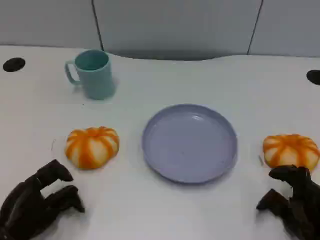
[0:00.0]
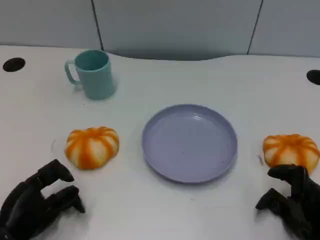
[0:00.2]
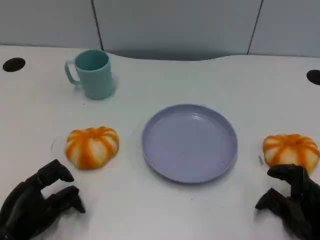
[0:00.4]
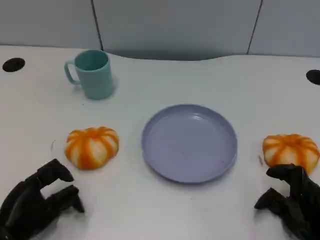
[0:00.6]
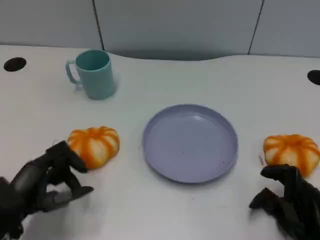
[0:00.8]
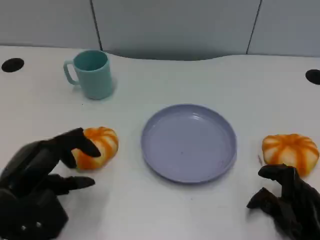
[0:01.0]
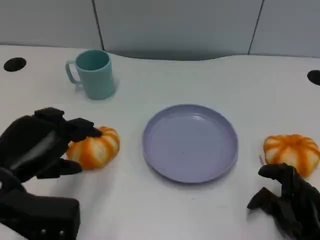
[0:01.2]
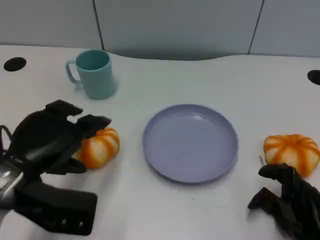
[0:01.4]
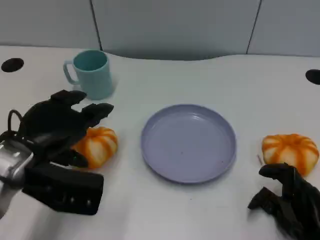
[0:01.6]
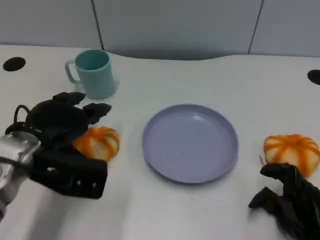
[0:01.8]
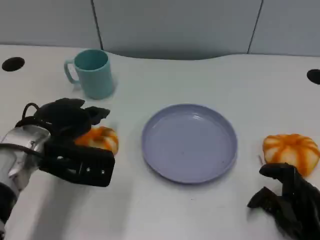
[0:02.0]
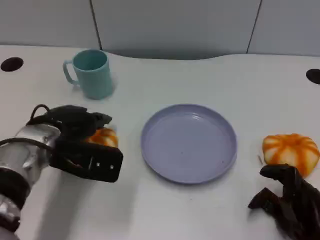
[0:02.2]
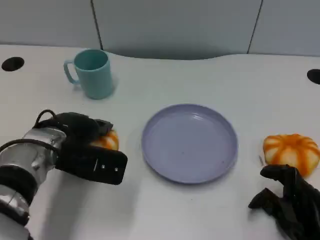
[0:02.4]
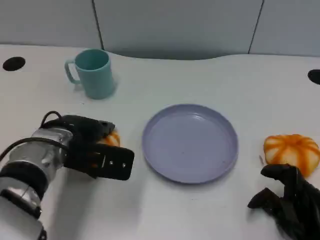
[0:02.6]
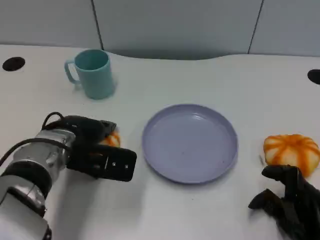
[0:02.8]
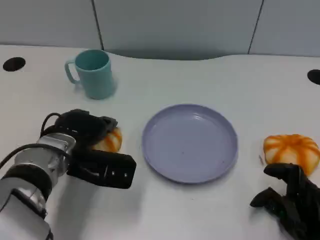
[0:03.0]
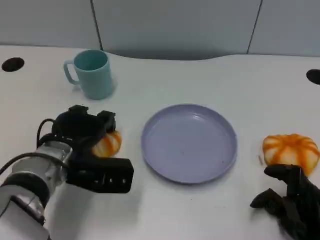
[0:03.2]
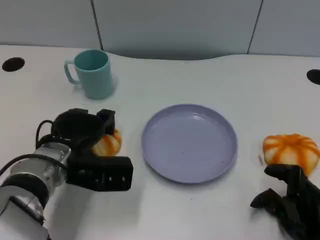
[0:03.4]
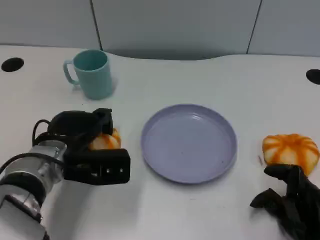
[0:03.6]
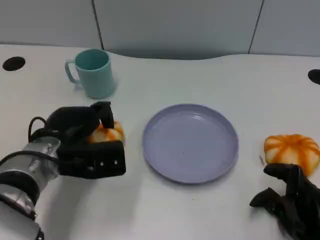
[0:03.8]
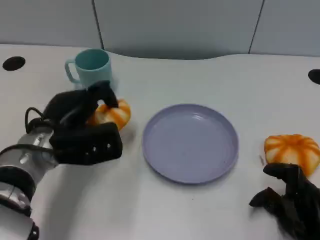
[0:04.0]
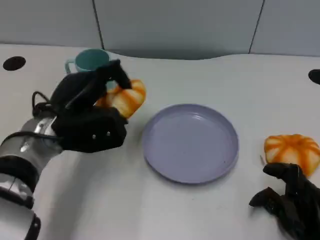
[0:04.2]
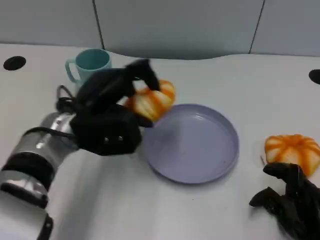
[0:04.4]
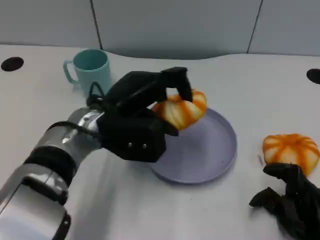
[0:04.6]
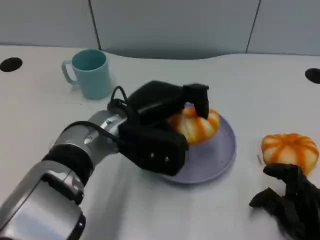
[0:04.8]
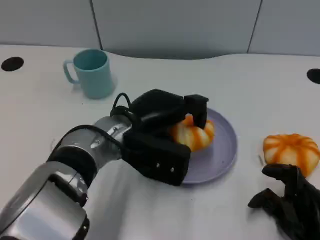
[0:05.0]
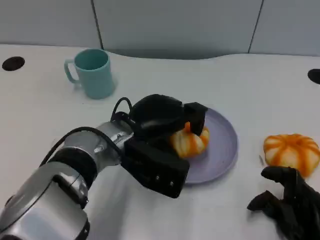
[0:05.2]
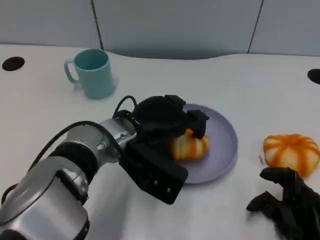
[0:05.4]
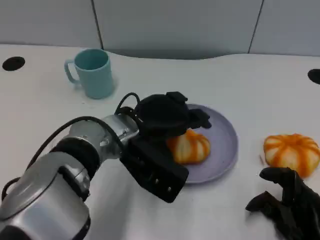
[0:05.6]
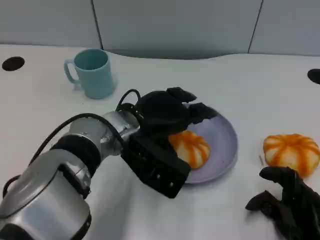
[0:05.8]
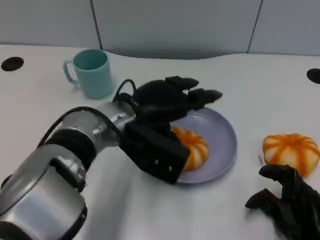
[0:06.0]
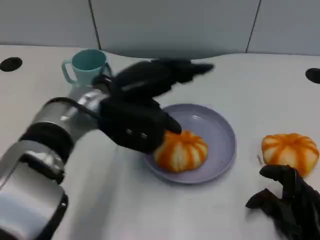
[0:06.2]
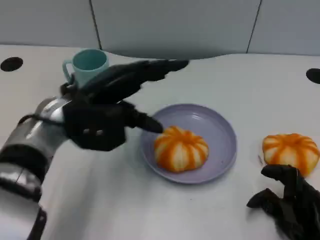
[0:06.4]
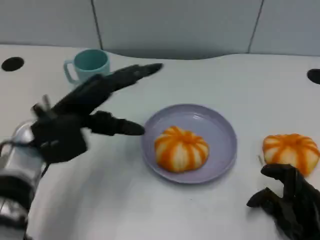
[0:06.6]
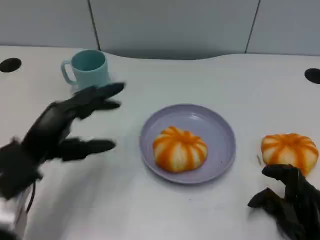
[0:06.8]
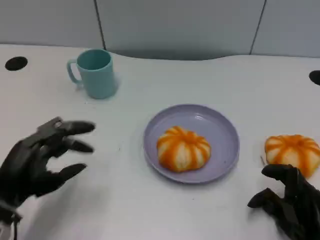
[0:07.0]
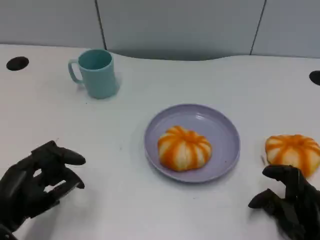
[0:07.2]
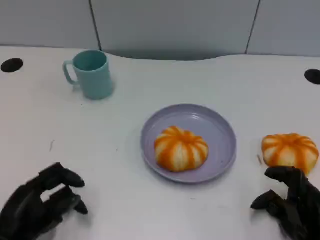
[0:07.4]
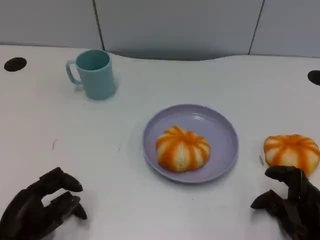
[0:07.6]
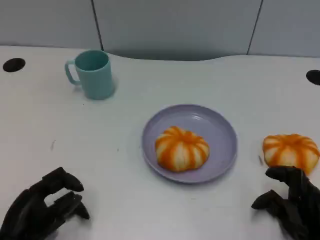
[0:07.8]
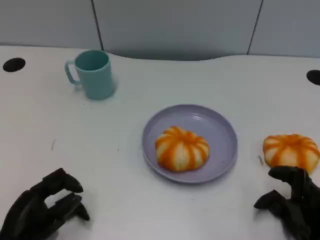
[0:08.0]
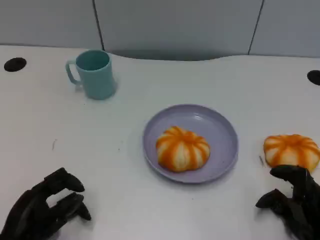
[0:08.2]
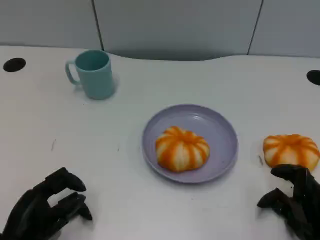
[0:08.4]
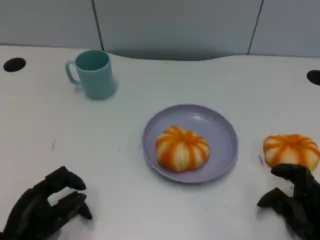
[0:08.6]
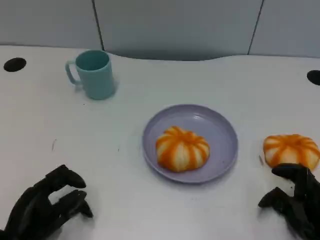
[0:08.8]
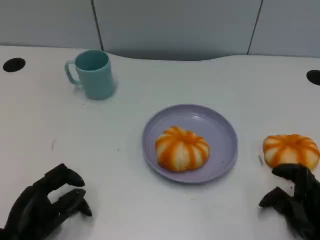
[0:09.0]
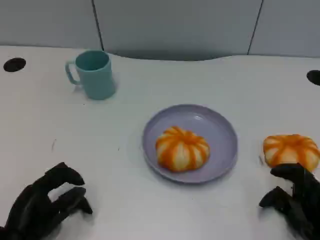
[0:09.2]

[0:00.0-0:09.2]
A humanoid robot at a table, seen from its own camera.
Task of the whole recording: Grasp the bread from the table and place it into the plate.
0.0 to 1.6 s: The left hand goes roughly 15 cm upward, forward and to the right.
1.6 to 3.0 s: The left hand goes approximately 5 cm downward.
3.0 to 4.6 s: The left hand shifts approximately 10 cm to the right and upward.
6.2 to 7.6 s: The left hand is displaced backward, downward and to the left by approximately 25 cm.
7.6 to 9.2 s: There are only small adjustments of the hands.

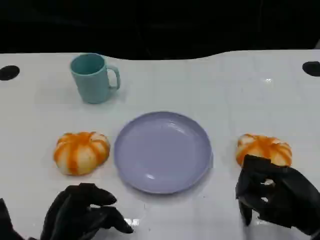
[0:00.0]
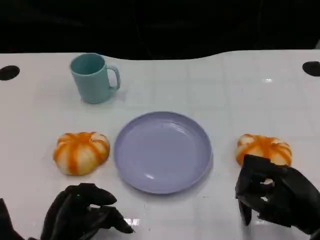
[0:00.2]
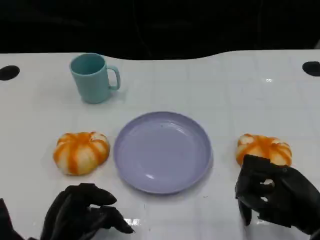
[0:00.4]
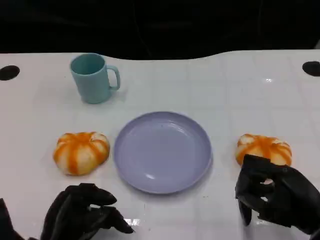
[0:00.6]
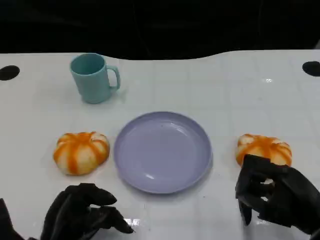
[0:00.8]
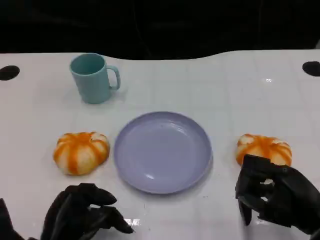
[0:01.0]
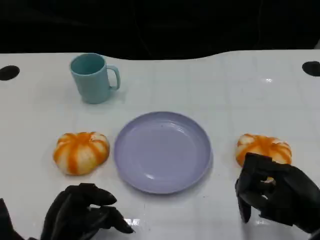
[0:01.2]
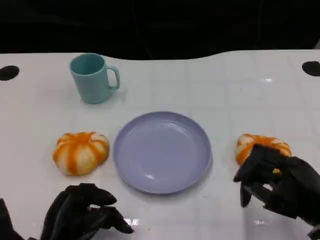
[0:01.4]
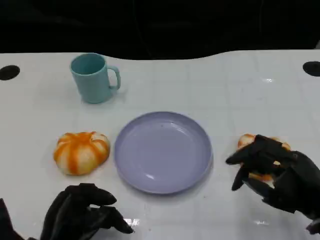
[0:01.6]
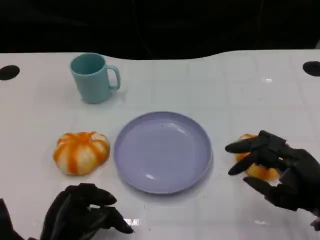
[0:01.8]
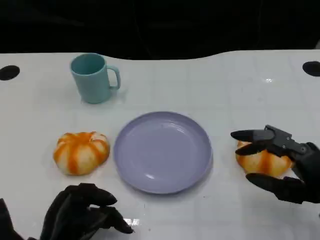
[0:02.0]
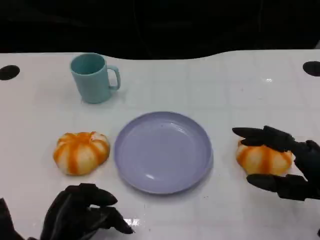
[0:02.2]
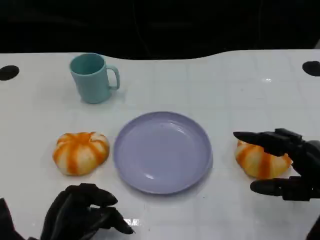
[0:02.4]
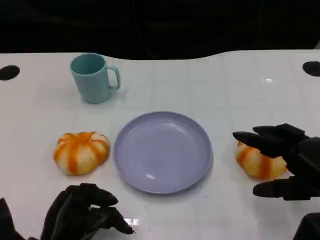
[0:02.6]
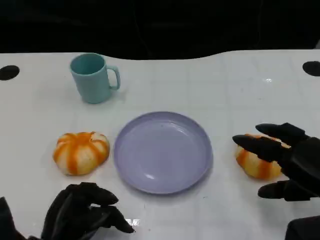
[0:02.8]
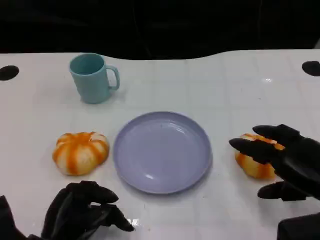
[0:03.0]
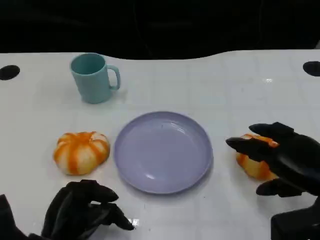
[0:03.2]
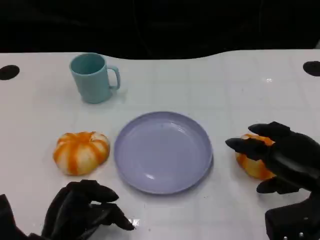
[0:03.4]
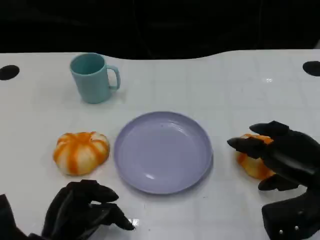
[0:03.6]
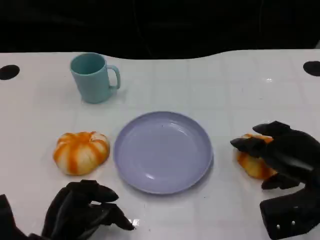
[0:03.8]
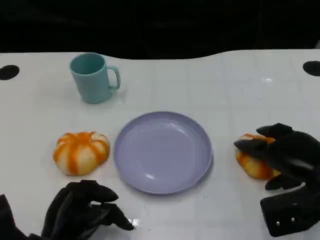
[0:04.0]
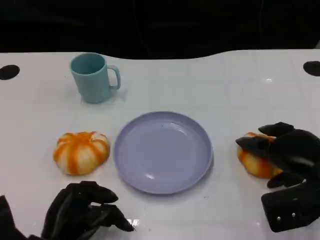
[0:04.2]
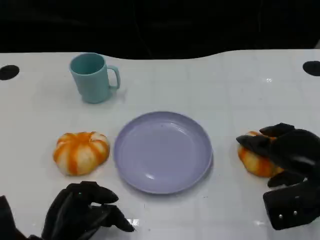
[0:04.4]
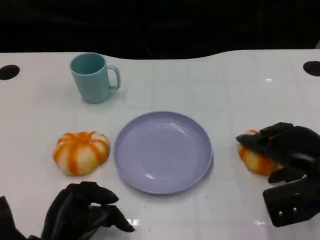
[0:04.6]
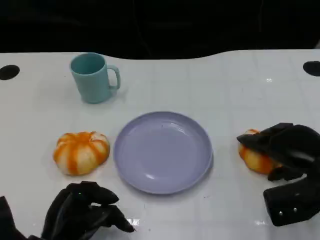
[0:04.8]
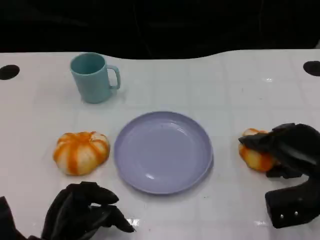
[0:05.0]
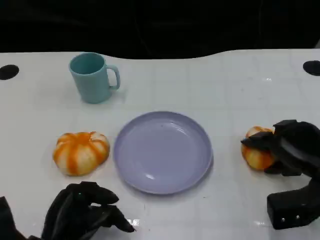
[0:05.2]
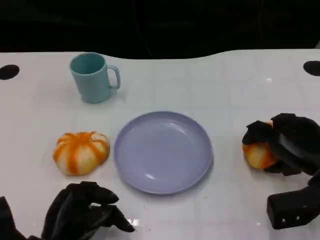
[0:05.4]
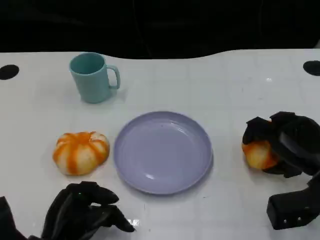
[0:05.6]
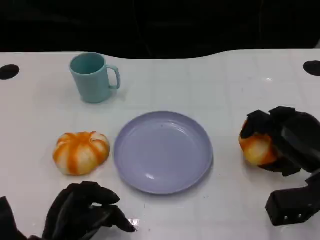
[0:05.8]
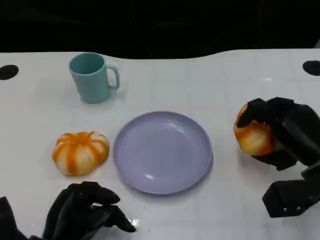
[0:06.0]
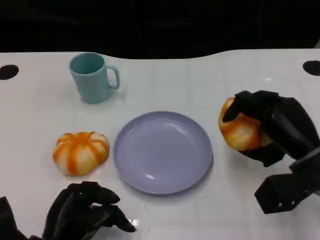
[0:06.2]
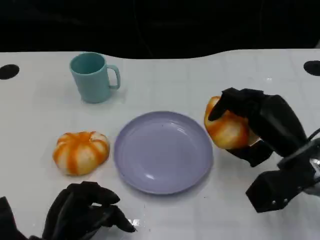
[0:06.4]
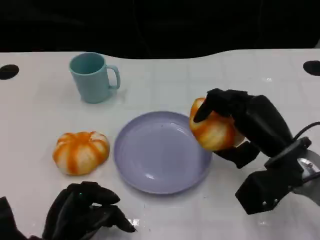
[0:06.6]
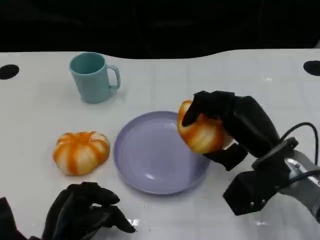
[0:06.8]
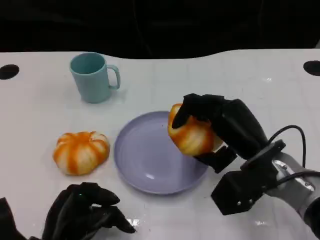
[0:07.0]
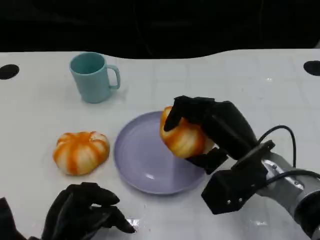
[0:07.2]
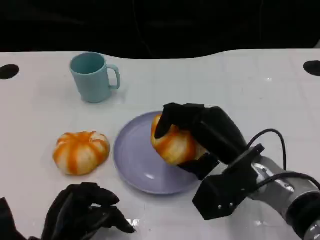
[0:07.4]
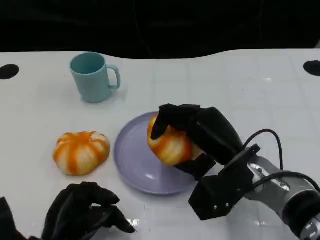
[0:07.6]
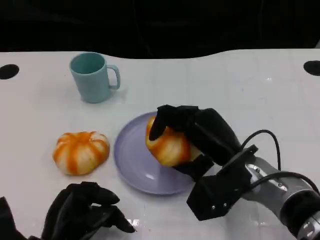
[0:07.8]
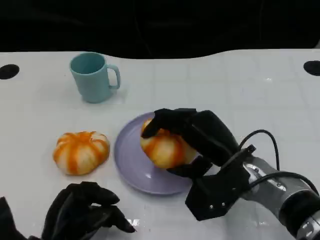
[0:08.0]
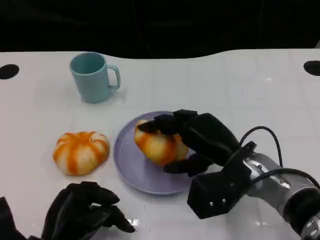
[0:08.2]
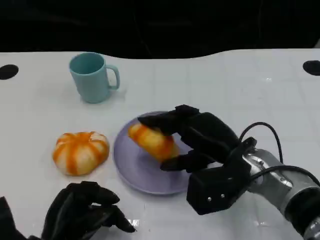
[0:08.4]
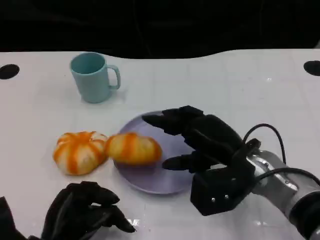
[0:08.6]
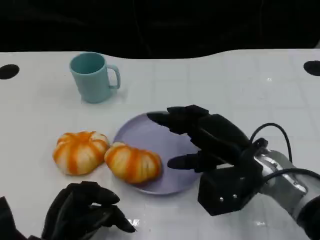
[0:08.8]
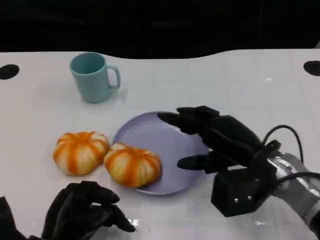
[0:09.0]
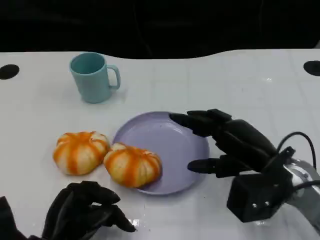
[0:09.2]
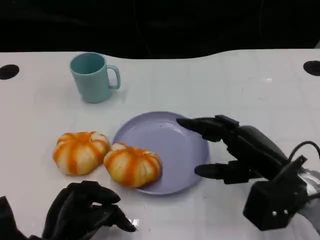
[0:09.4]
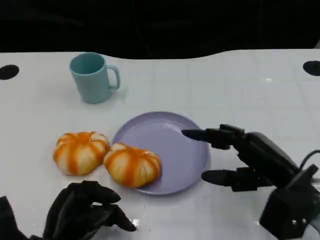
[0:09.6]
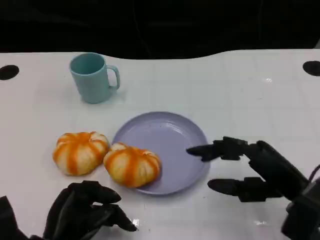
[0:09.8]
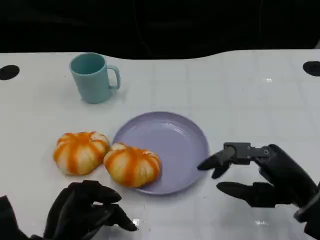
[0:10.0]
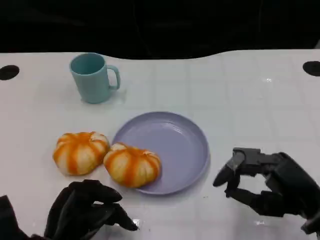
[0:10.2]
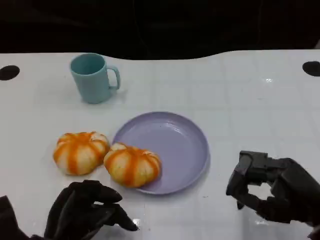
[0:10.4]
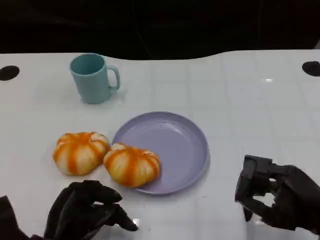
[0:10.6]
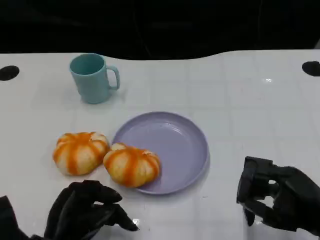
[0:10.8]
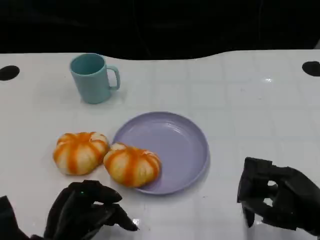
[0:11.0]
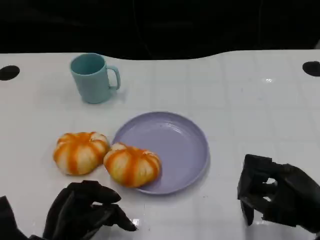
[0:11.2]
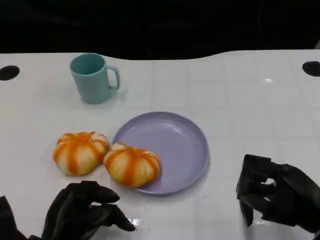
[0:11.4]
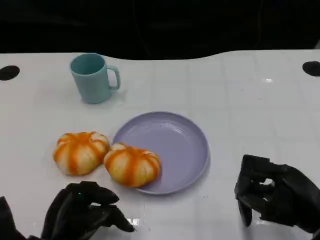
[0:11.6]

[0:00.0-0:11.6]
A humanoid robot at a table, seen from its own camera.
Task of the whole recording: Grasp the bread from the table and place it into the plate.
0.0 to 1.4 s: The hands make only small movements.
2.8 to 4.4 s: The right hand moves forward, roughly 5 cm.
5.8 to 7.2 s: The right hand goes some 10 cm to the left.
7.2 to 8.8 s: There are only small adjustments of the hands.
8.8 to 10.2 s: The right hand heads to the right and backward, covering some 10 cm.
10.2 to 11.6 s: There are only small adjustments of the hands.

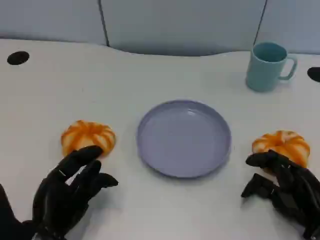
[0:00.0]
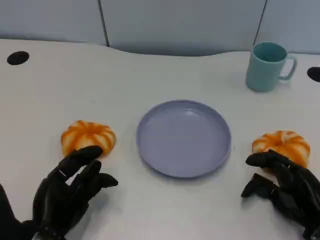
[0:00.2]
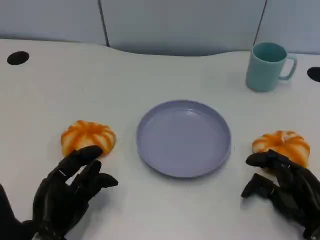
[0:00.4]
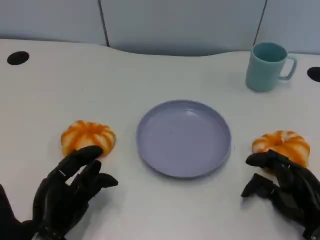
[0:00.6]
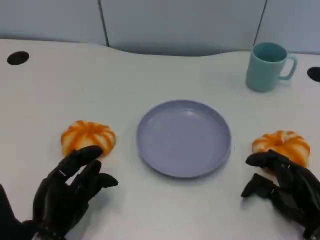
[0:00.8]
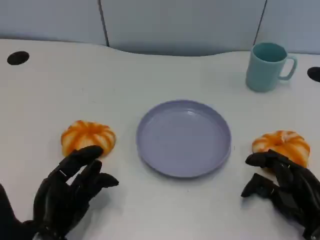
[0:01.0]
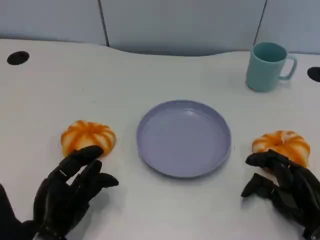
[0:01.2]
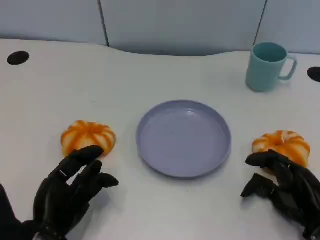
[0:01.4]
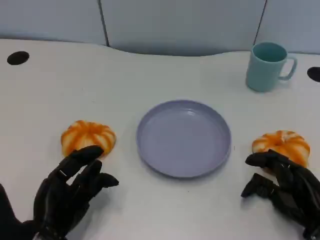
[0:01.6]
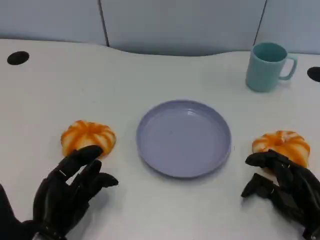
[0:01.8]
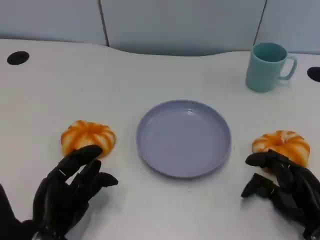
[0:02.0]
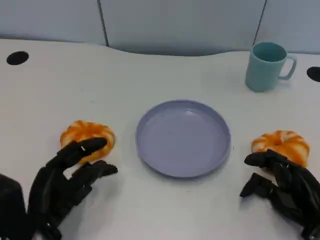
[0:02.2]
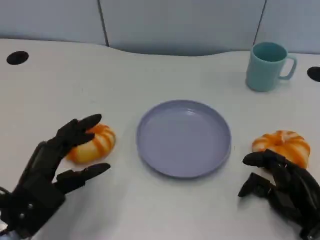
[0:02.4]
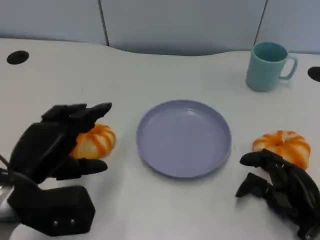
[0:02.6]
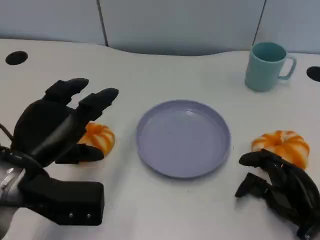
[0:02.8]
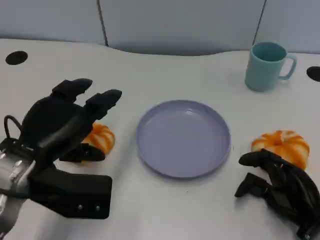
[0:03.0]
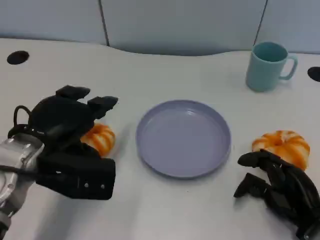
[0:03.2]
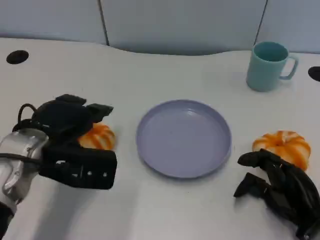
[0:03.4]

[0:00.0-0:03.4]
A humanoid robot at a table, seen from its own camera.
Task of the whole recording: Grasp the bread from the table and place it into the plate.
0.0 to 1.6 s: Neither hand changes place.
1.6 to 3.4 s: The left hand is displaced forward and upward by roughly 15 cm.
